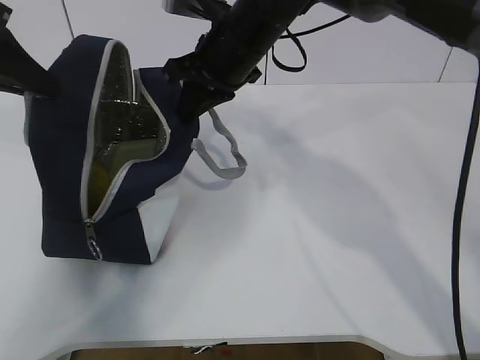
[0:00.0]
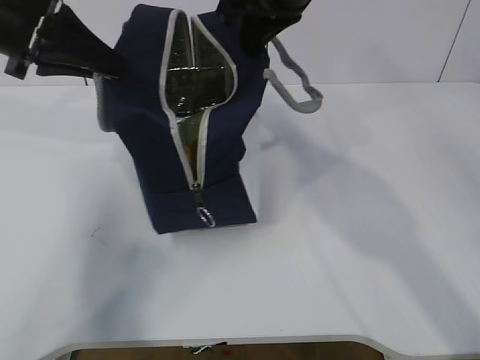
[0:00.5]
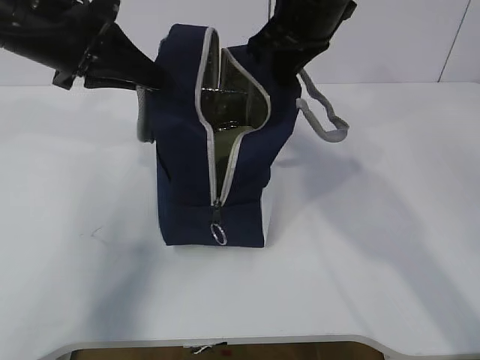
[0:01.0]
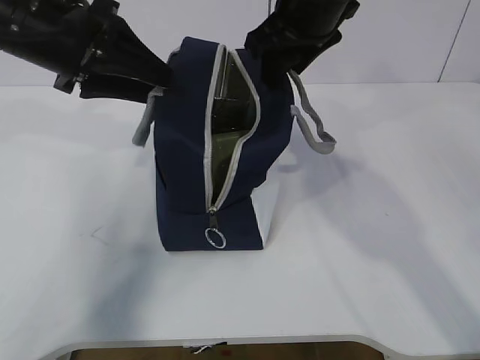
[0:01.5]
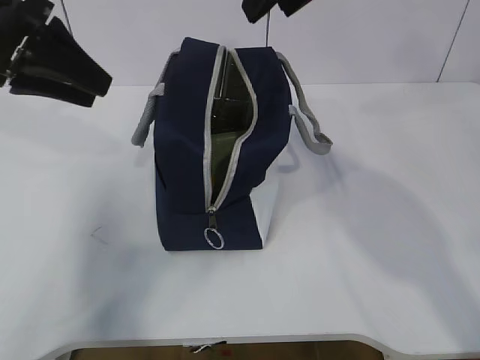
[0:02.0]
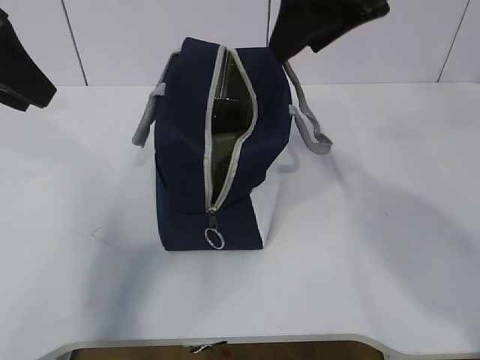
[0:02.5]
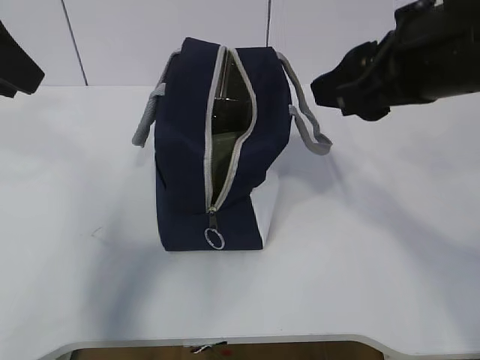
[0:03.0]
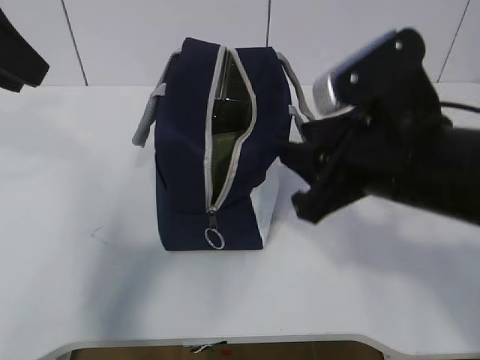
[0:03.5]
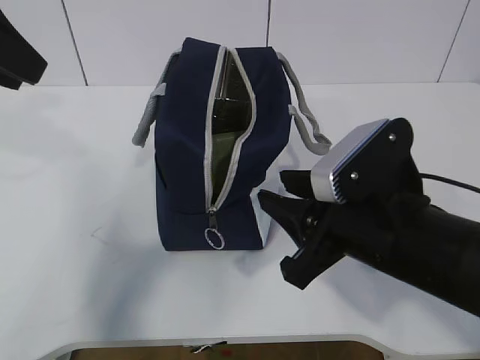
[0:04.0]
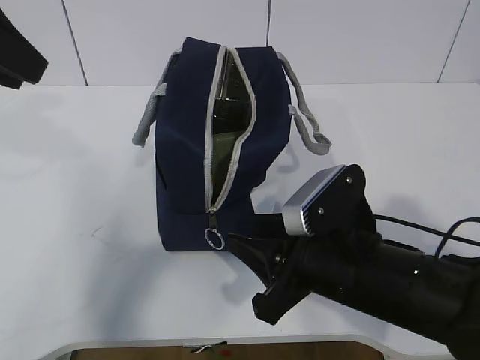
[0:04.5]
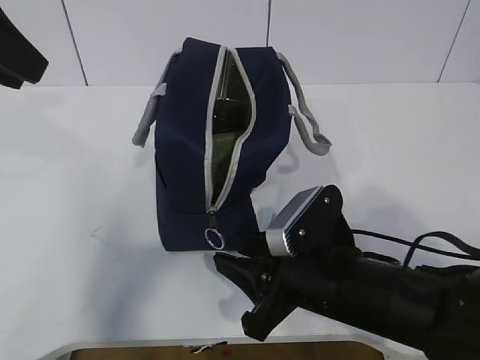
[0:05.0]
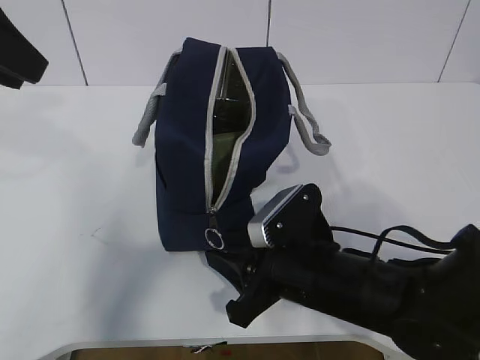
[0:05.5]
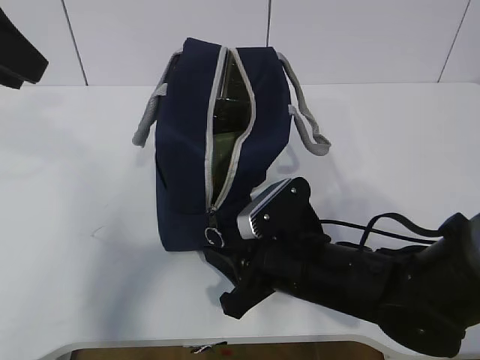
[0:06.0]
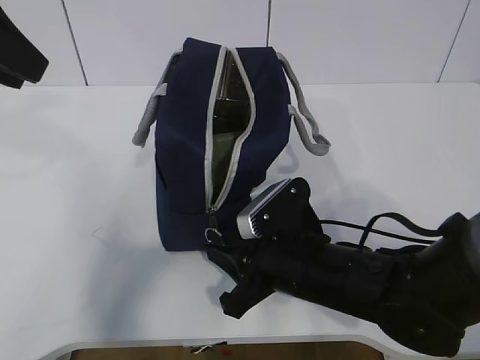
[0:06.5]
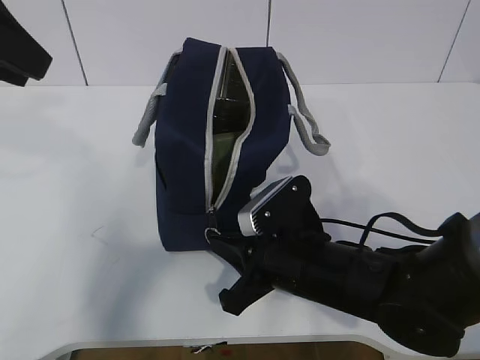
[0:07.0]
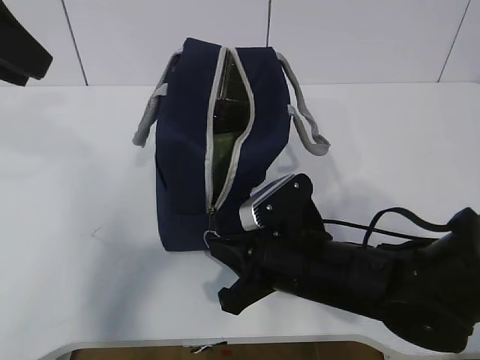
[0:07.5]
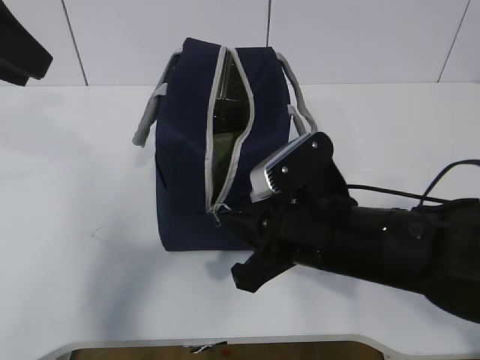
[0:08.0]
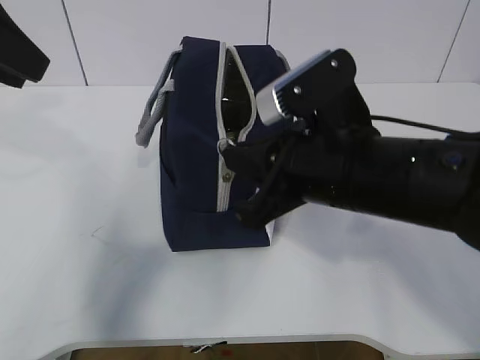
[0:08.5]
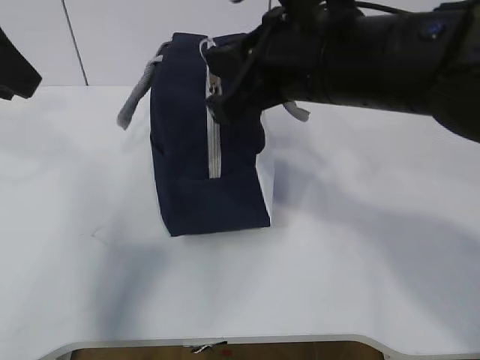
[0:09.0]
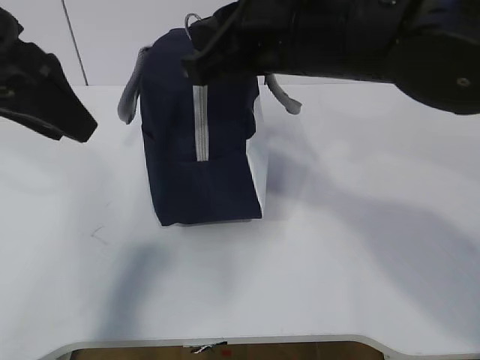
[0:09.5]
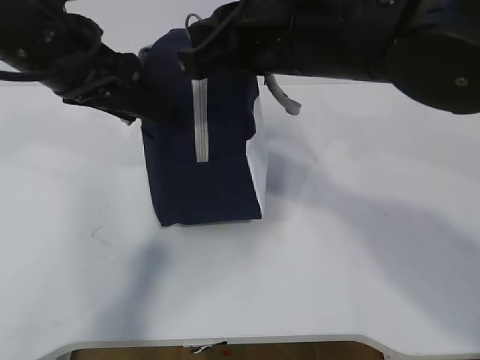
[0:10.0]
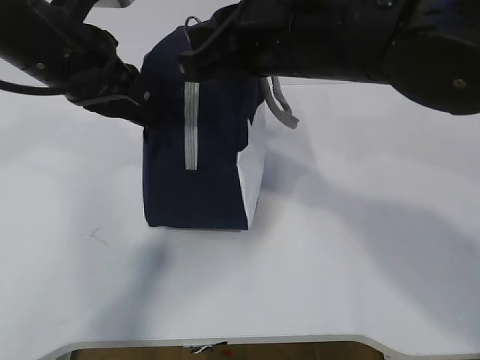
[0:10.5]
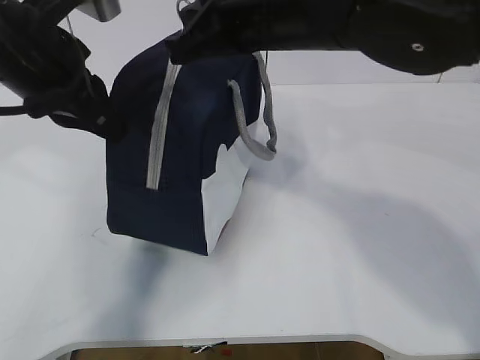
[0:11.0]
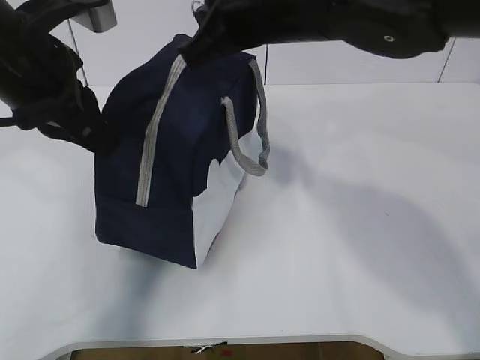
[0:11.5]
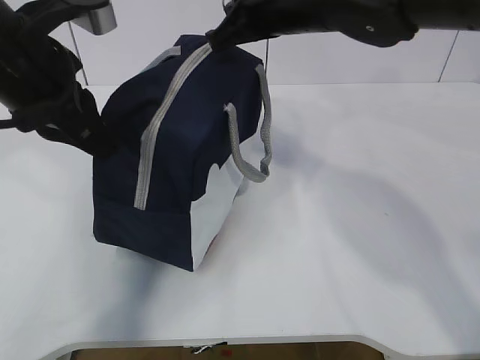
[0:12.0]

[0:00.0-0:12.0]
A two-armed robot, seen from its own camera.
Step, 0:00.0 to 0:05.5: Grab the lunch bag with your left hand.
0:00.0 to 0:02.0: The right gripper moves upward, to the right and backward, roughly 15 cm, and opens. The left gripper opens its fingers.
0:02.0 to 0:04.0: The right gripper moves downward and backward, some 25 cm. Meanwhile the left gripper goes roughly 10 cm backward and upward.
0:04.0 to 0:06.0: The right gripper goes some 10 cm downward.
0:06.0 to 0:08.0: The right gripper is displaced upward by approximately 5 cm, and closes up.
0:08.0 to 0:10.0: The right gripper moves upward, approximately 15 cm. Meanwhile the left gripper shifts some 10 cm to the right and downward.
0:10.0 to 0:12.0: The left gripper closes up. Meanwhile the right gripper shifts about 10 cm forward.

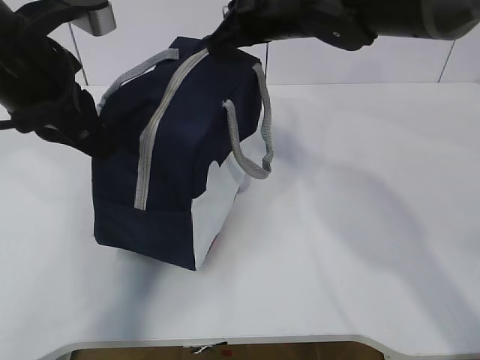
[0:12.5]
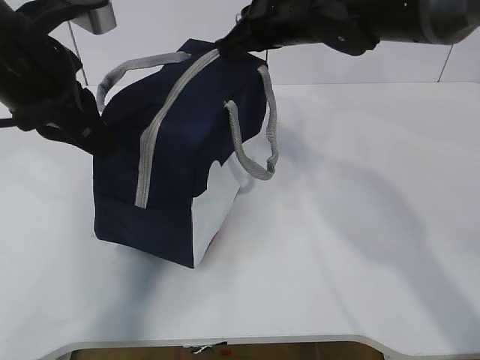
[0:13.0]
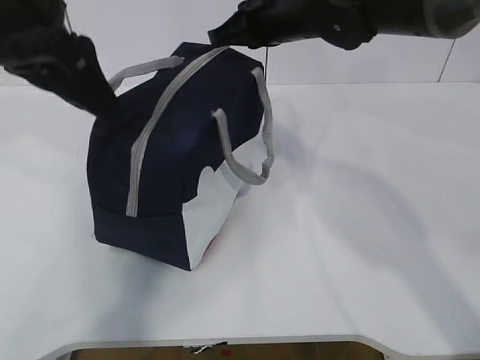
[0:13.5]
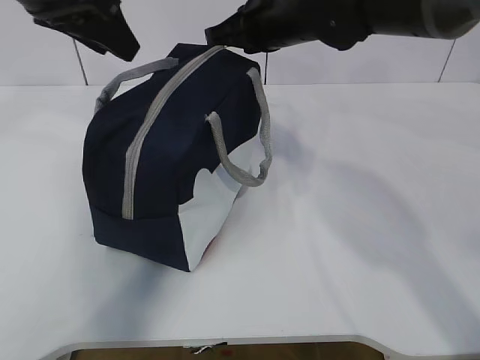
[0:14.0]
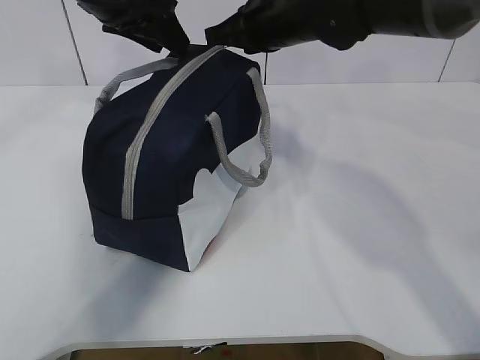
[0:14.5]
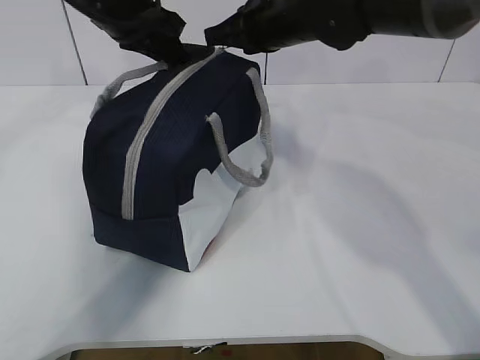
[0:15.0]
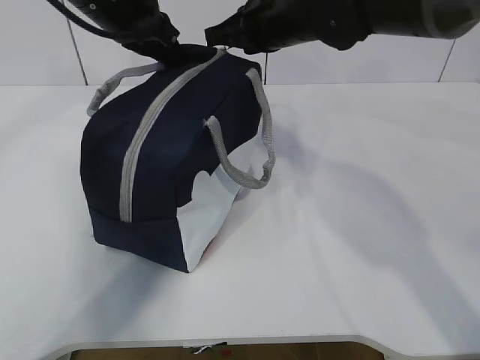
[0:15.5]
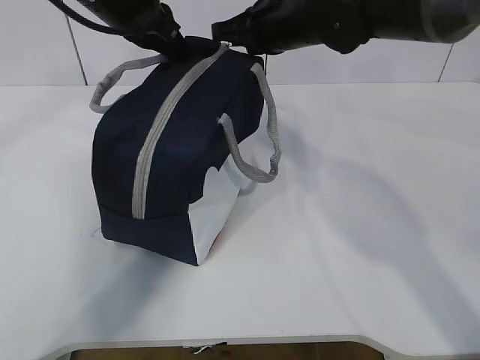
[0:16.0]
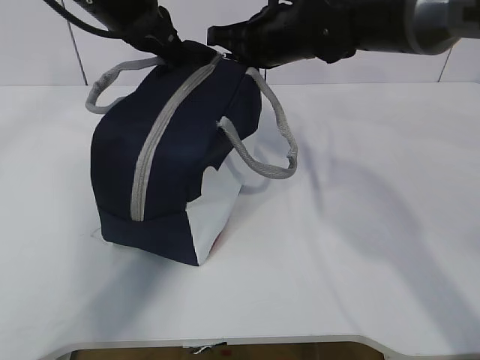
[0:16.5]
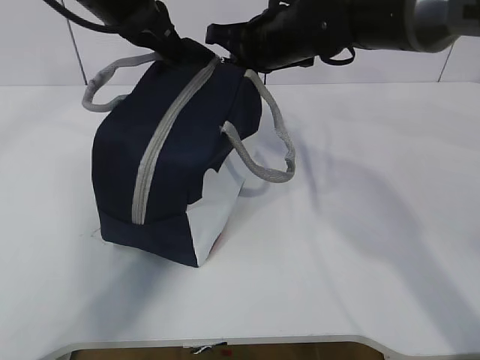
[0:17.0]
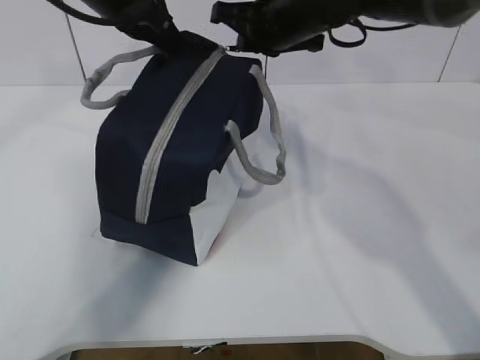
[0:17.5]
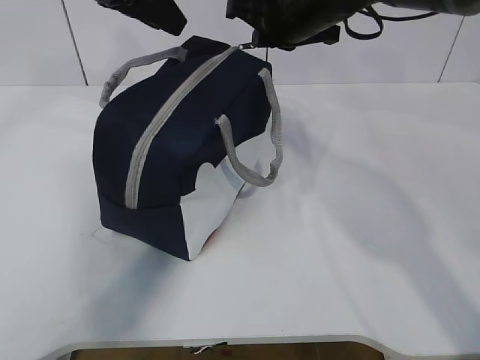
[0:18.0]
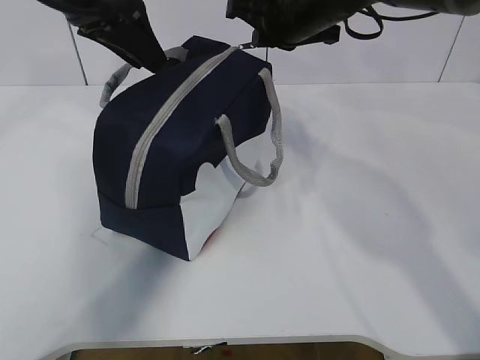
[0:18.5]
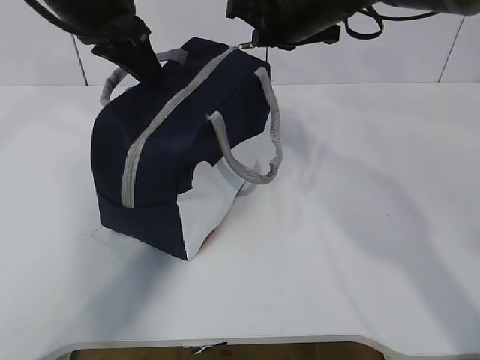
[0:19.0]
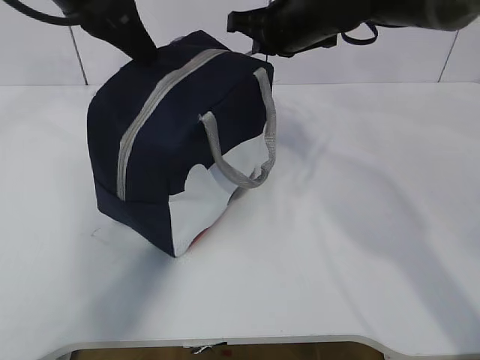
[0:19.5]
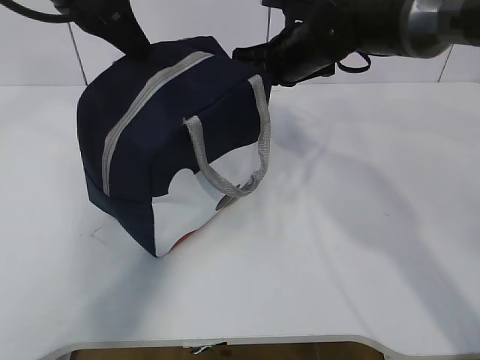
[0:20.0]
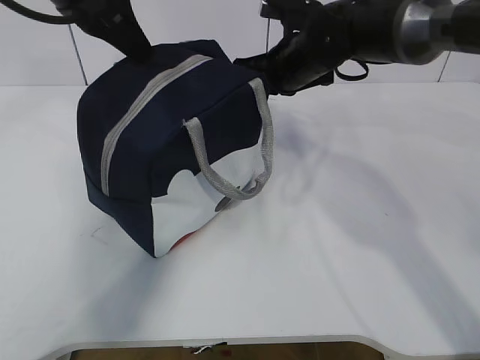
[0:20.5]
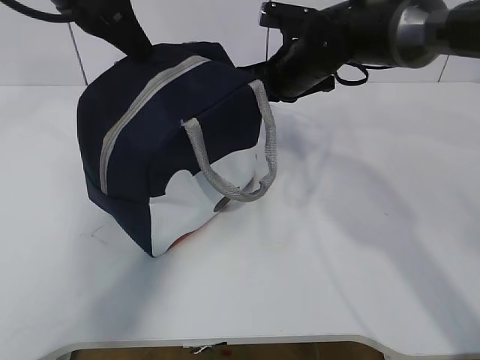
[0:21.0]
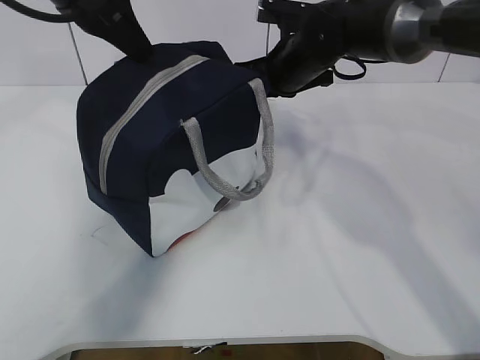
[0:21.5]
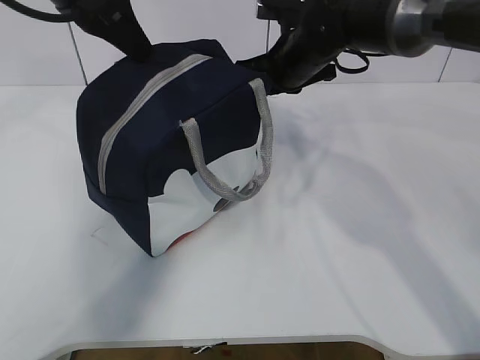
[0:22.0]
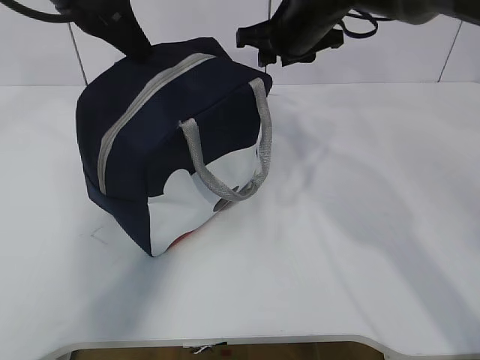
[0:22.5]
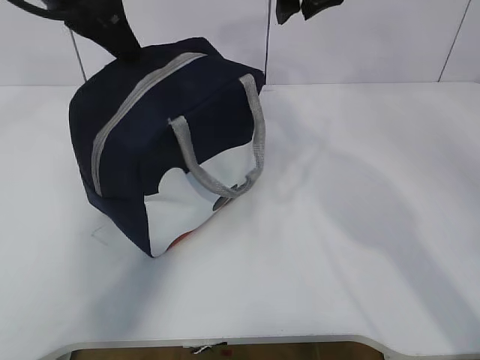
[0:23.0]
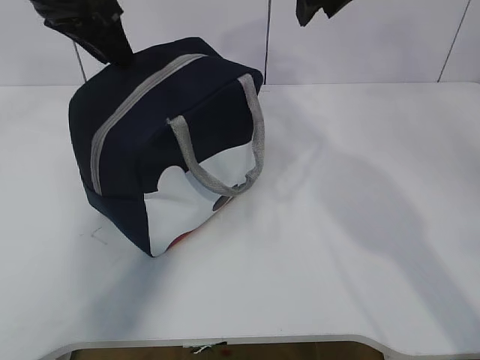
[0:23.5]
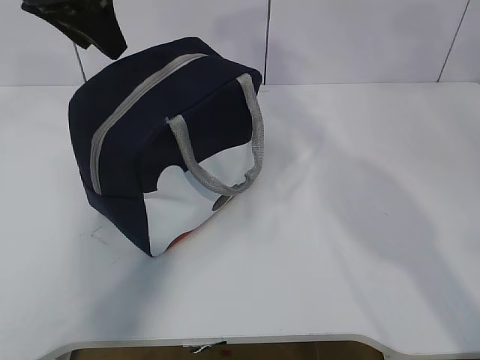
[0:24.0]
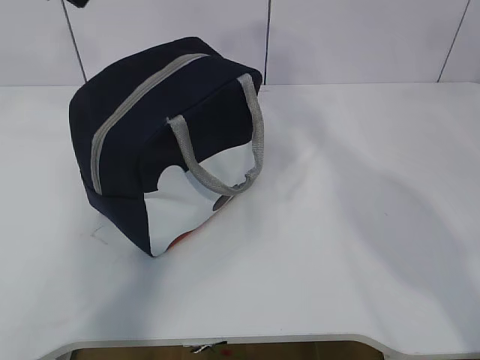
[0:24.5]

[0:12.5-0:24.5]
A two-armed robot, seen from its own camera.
Step, 0:13.5 to 0:14.0: Grab the lunch bag with your left hand.
0:12.5 to 0:14.5: The left gripper moves forward, some 10 cm, and opens up.
0:14.5 to 0:16.5: The left gripper closes its fingers.
0:16.5 to 0:18.5: The left gripper opens.
0:18.5 to 0:20.5: The right gripper goes about 5 cm downward, while the left gripper closes its fingers.
0:20.5 to 0:22.5: The right gripper opens.
0:22.5 to 0:24.5: The left gripper is displaced upward by some 5 cm, and opens up, while the right gripper heads upward and backward, covering roughly 20 cm.

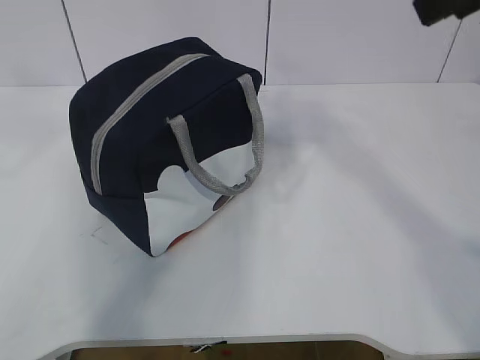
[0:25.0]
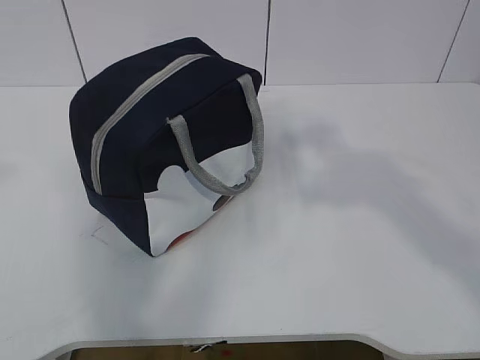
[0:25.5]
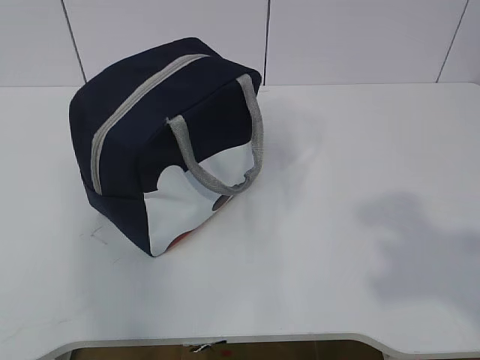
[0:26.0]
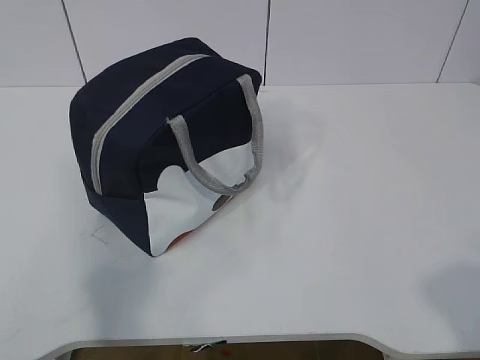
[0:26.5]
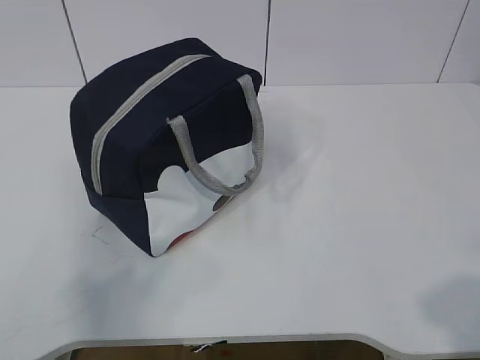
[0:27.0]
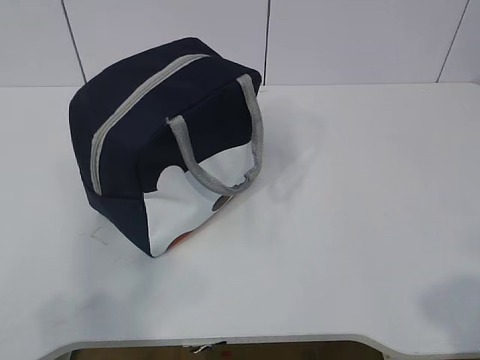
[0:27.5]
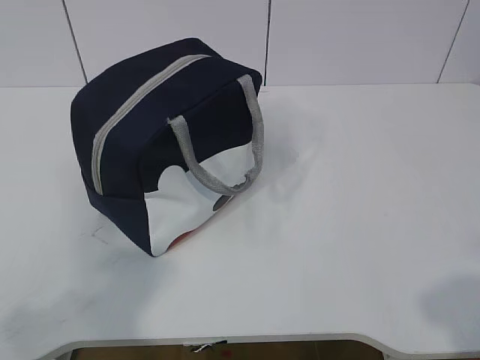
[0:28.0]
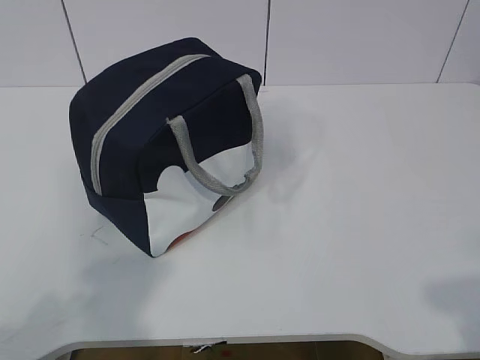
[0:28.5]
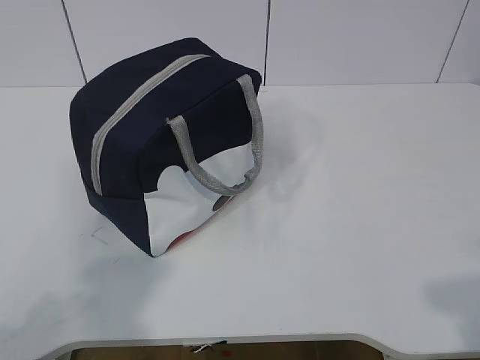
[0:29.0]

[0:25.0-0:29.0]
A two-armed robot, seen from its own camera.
0:25.0 to 0:27.0: The right gripper travels backward, downward and to the right by some 30 cm; the left gripper moves backward and downward, about 30 cm.
